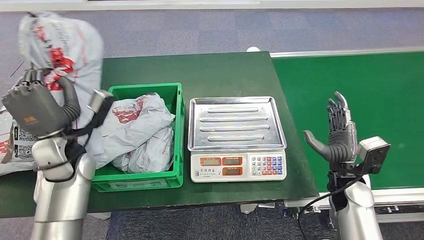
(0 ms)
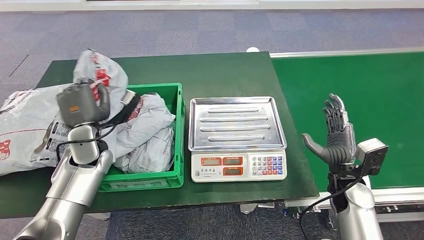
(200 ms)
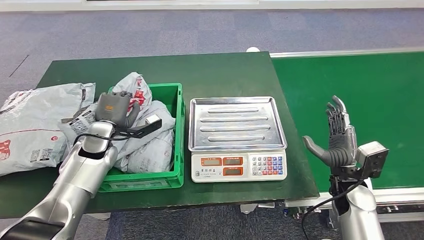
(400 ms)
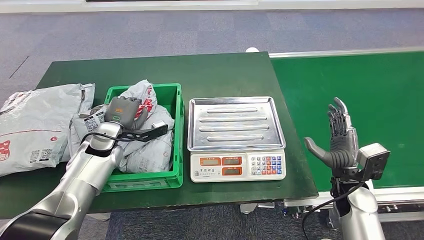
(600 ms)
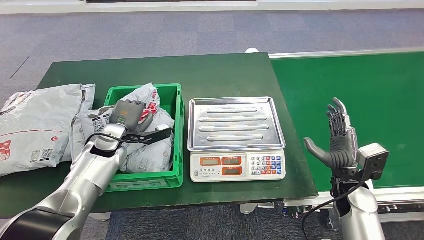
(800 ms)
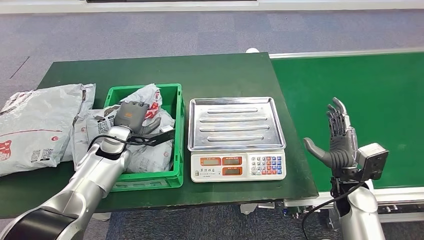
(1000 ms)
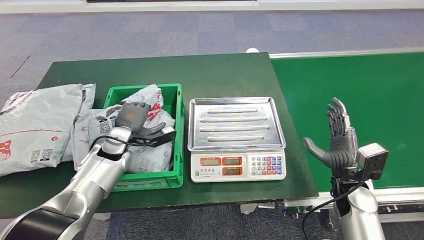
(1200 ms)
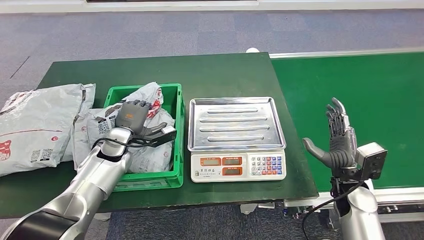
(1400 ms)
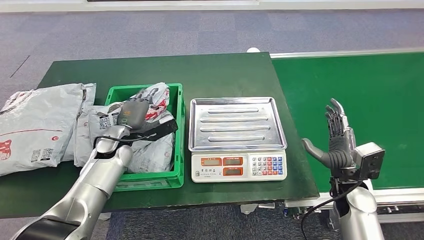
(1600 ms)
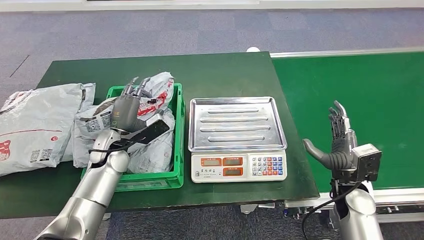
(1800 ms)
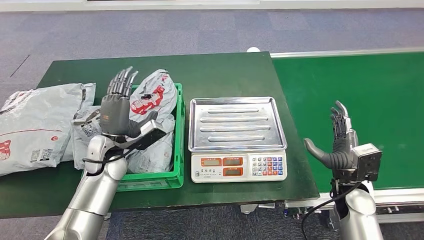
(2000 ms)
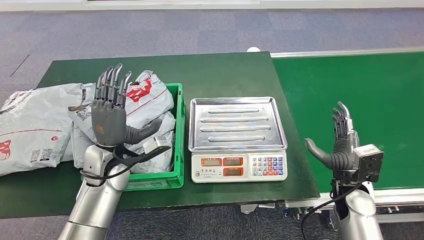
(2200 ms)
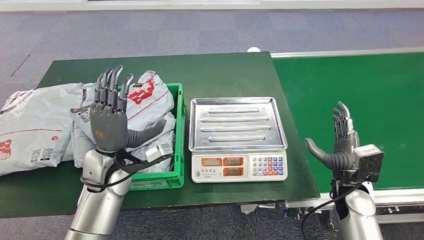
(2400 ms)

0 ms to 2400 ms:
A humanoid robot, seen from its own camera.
Step, 0 ms to 2400 ms: Place the parcel into the delivery box.
1200 ms to 2400 ms: The left hand travels backward and upward by about 10 cm.

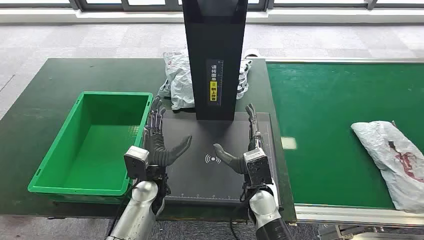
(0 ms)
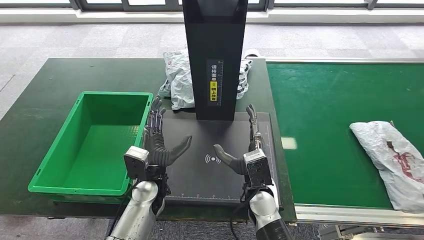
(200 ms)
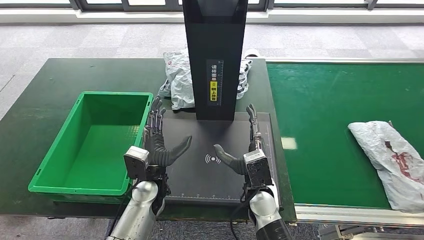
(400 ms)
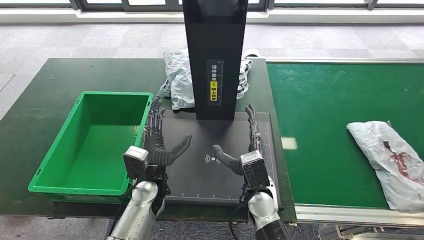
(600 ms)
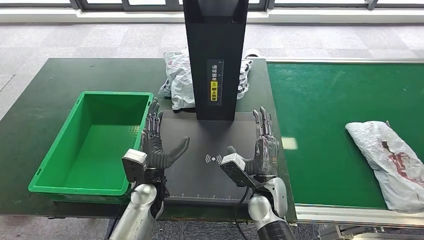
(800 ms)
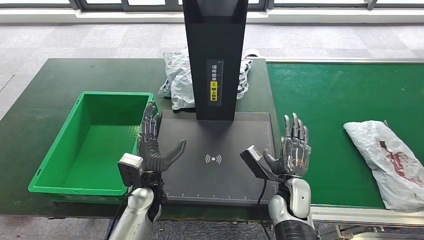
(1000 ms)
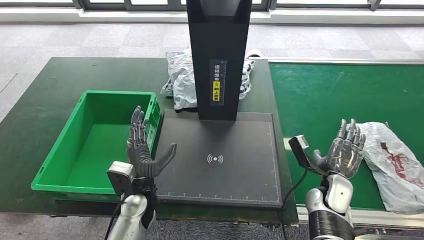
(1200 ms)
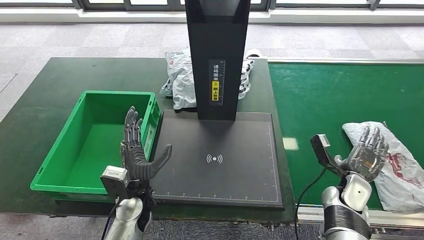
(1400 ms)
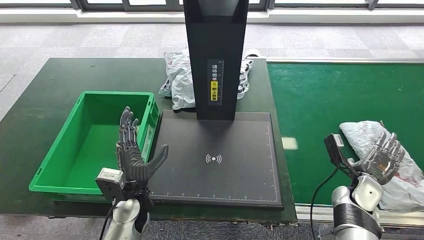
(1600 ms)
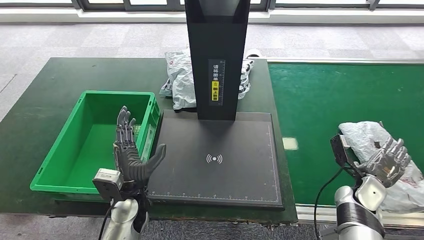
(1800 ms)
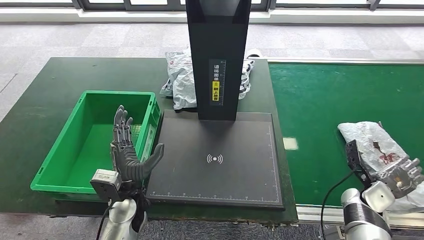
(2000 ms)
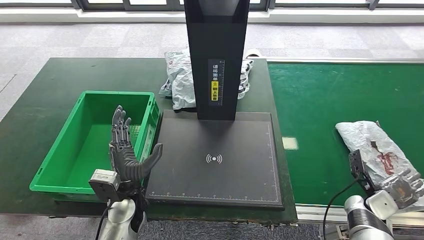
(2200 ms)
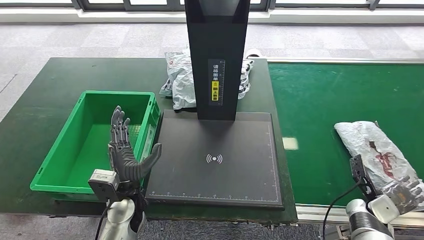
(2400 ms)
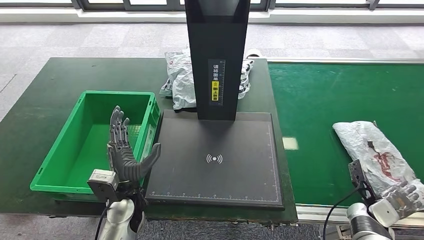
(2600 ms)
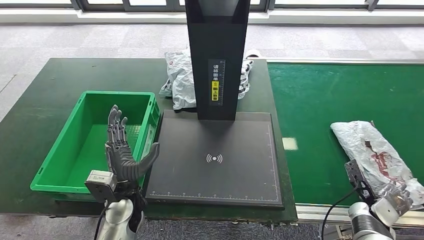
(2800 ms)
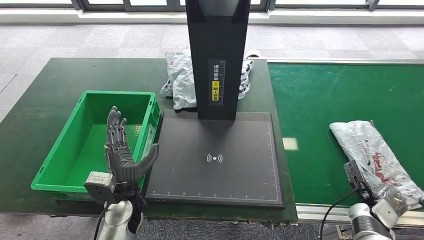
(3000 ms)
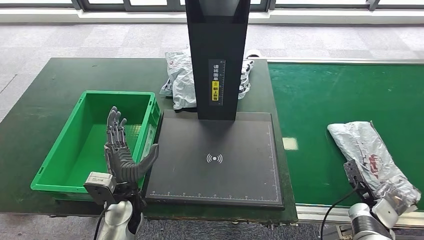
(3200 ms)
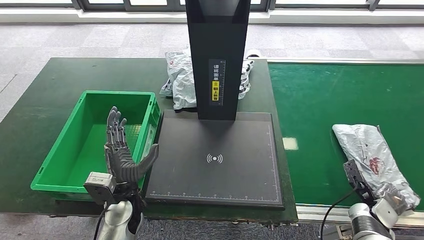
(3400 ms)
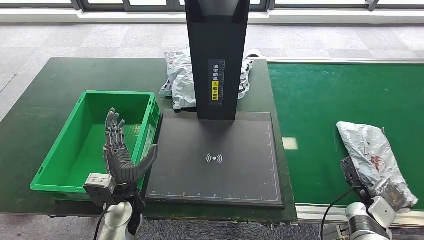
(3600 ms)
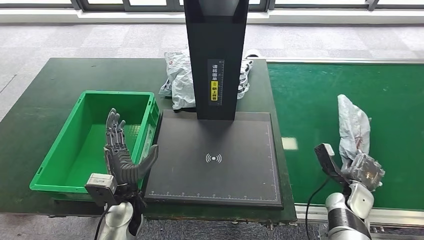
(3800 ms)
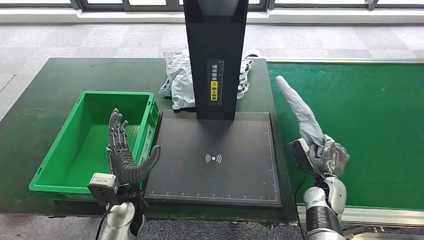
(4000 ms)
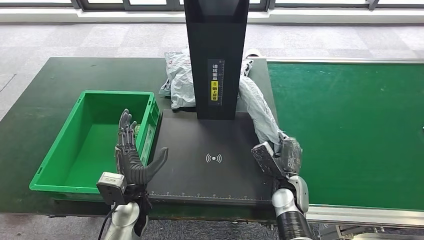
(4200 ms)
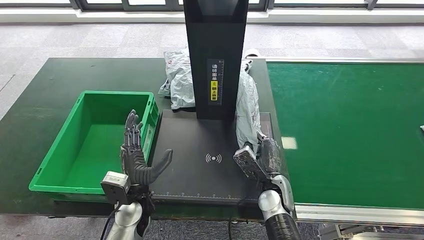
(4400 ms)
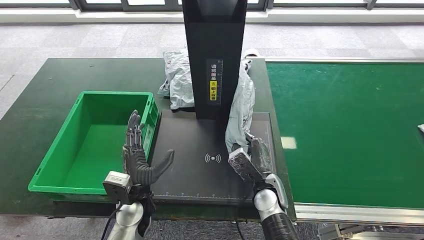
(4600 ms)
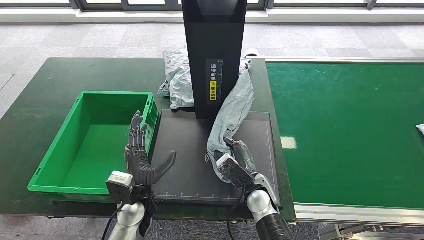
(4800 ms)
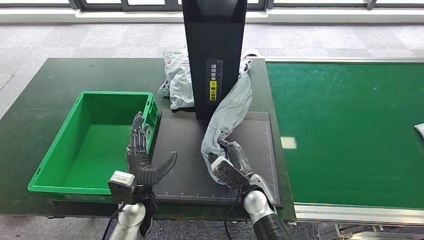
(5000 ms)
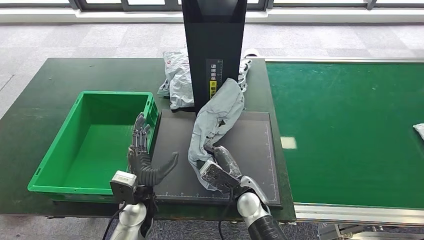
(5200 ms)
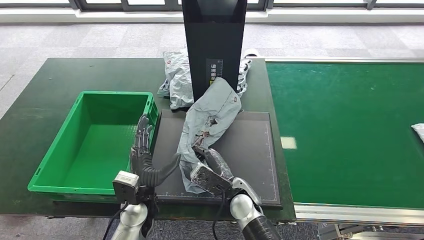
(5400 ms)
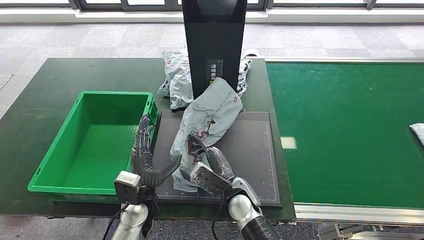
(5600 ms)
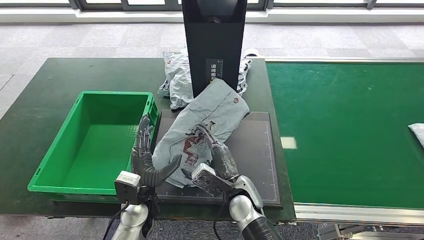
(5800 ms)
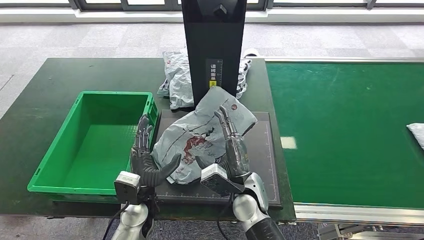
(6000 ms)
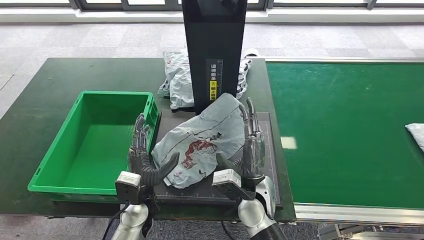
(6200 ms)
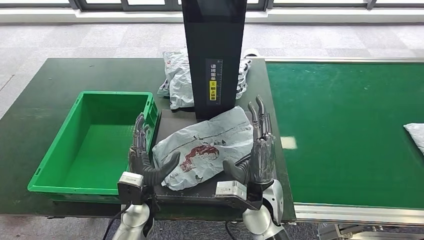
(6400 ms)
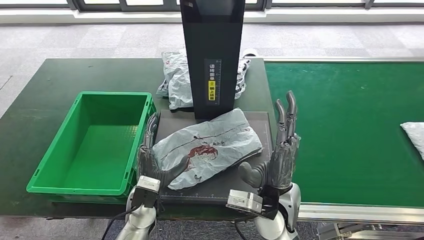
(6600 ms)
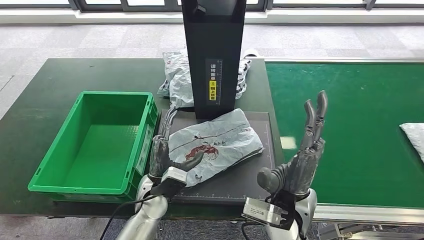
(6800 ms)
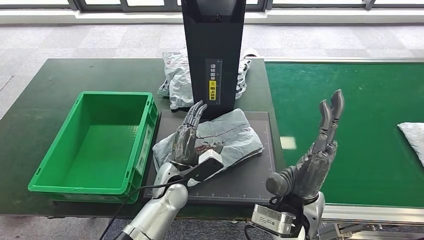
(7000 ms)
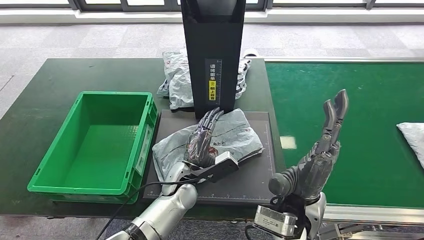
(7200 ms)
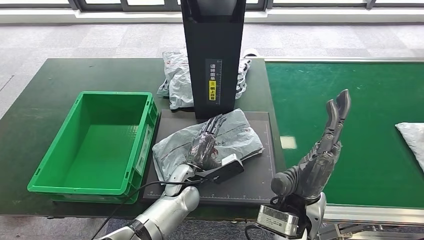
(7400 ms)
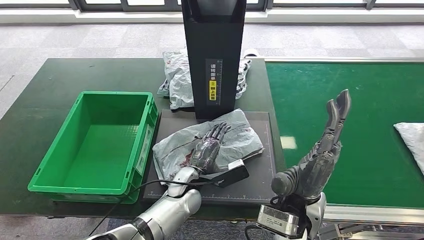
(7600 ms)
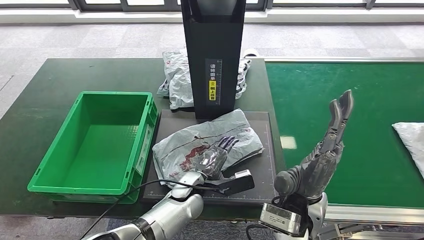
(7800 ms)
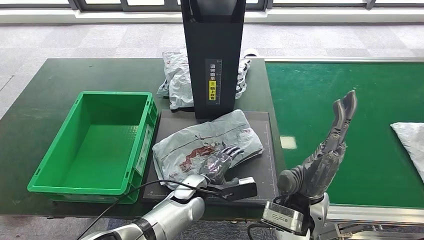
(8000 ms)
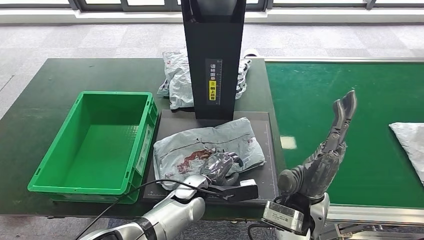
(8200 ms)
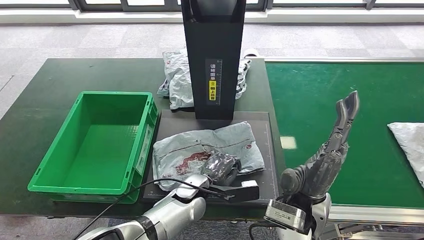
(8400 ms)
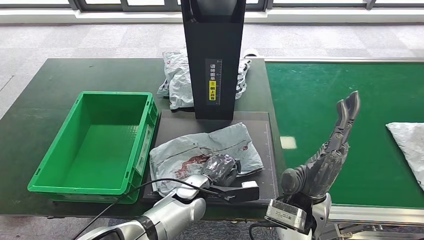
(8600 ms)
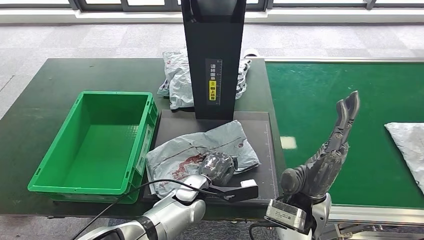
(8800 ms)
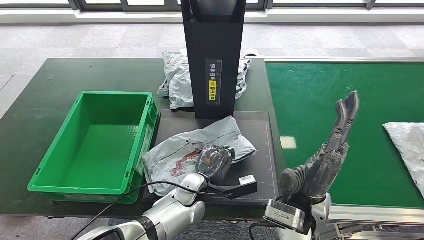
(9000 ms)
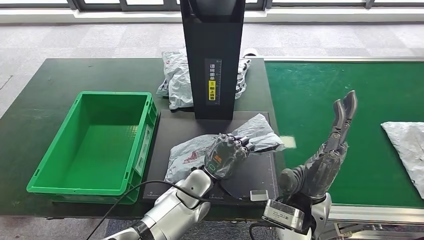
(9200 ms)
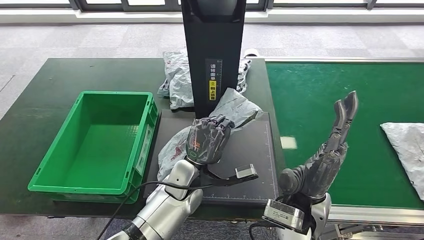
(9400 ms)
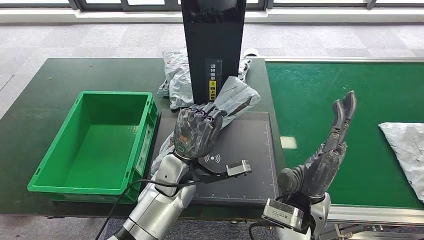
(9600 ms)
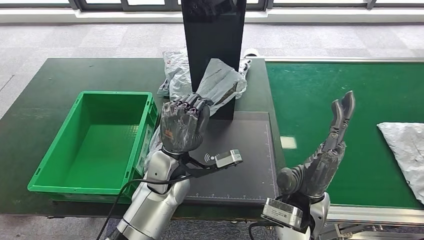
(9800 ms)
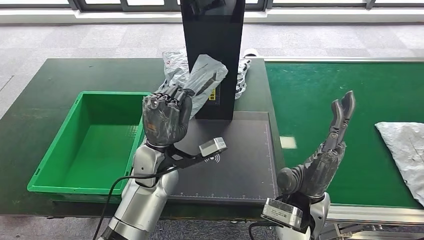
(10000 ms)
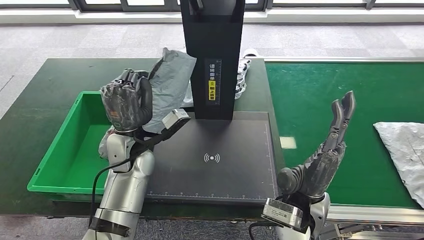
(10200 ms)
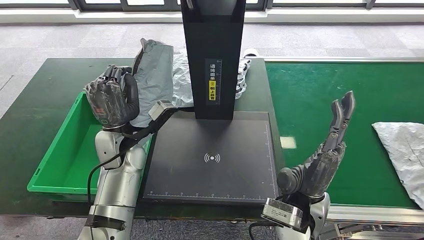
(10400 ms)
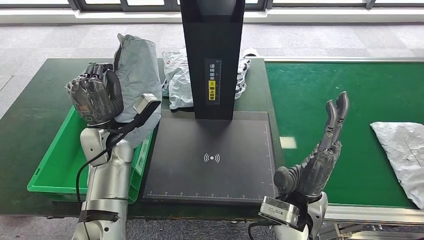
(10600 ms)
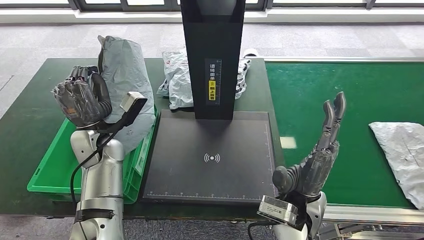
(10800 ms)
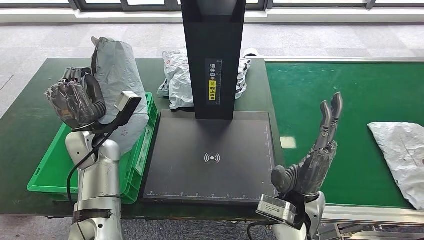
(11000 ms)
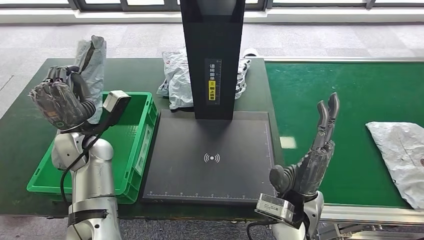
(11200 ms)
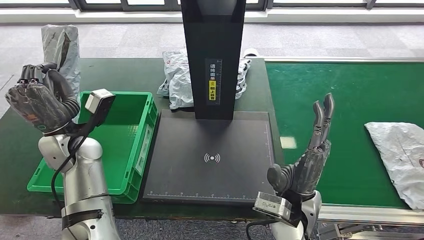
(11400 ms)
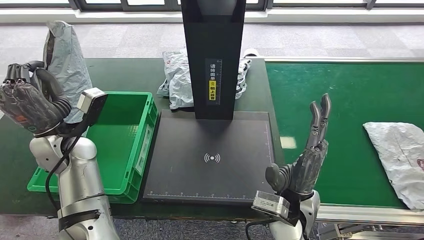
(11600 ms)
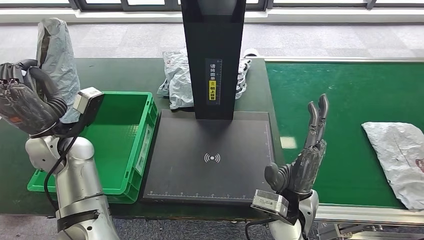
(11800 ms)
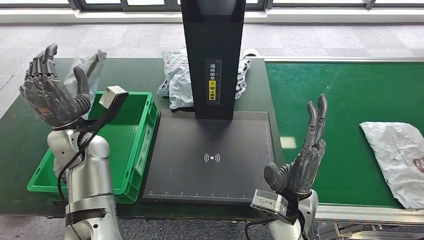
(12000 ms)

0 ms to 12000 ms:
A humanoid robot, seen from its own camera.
Step, 0 ms to 4800 ms: Take the parcel off the conveyor belt.
Step, 5000 ms to 6600 ms: Place the parcel onto the inbound machine.
Step, 6800 ms to 9800 ms: Pick up the parcel from the inbound machine.
1600 ms to 3000 ms: The right hand heads to the right and downward, covering about 10 cm.
4400 ms to 6000 ms: The right hand is displaced to the left by roughly 10 cm.
6000 ms to 7600 ms: The right hand heads upward and to the right, covering some 15 cm, while the left hand is displaced to the right and forward by about 10 cm.

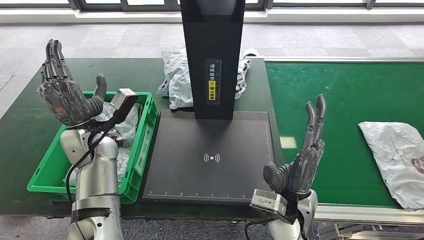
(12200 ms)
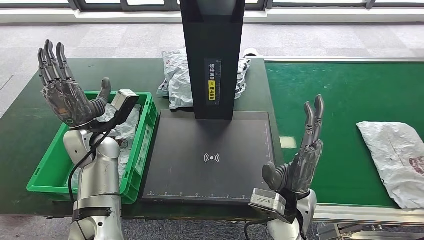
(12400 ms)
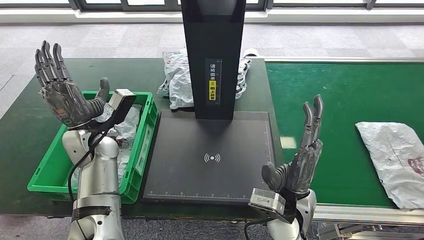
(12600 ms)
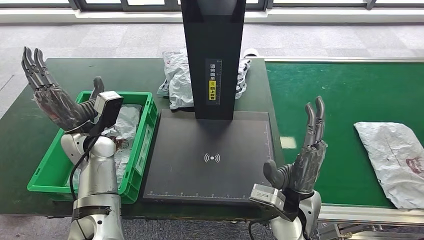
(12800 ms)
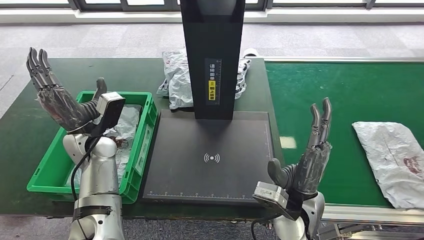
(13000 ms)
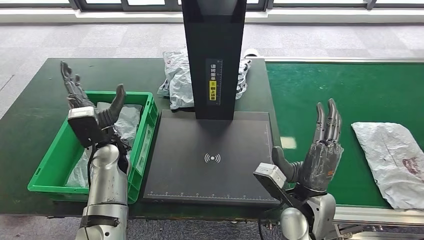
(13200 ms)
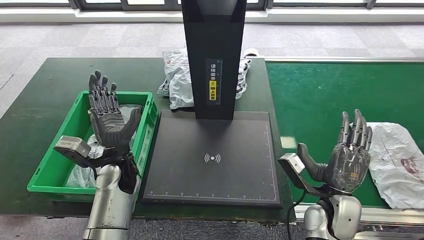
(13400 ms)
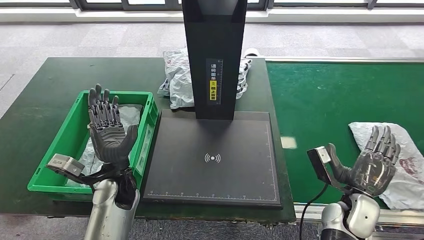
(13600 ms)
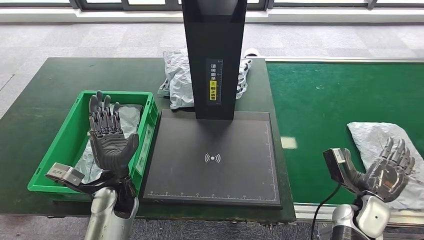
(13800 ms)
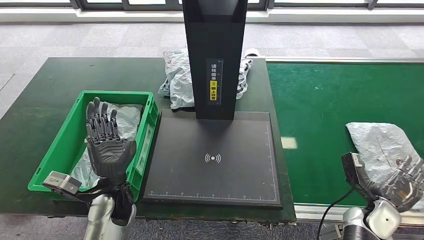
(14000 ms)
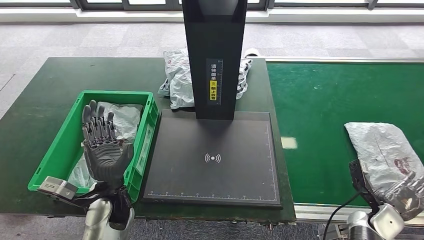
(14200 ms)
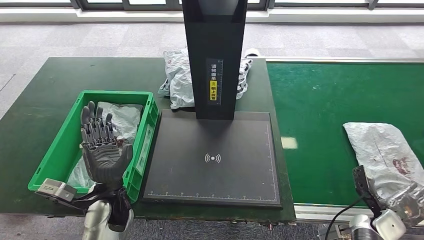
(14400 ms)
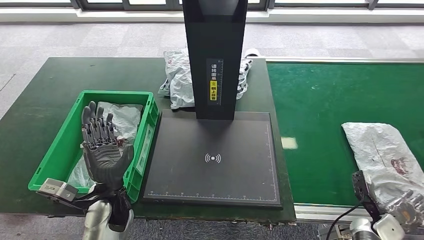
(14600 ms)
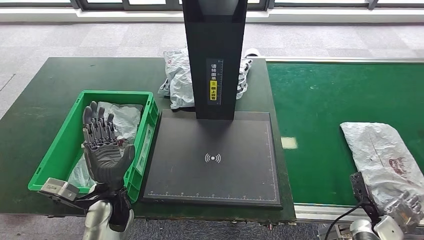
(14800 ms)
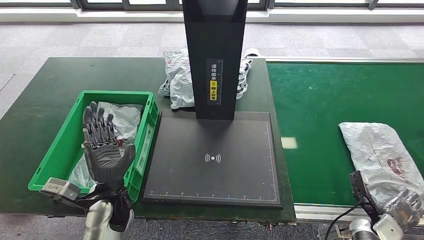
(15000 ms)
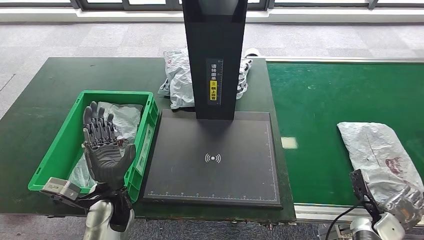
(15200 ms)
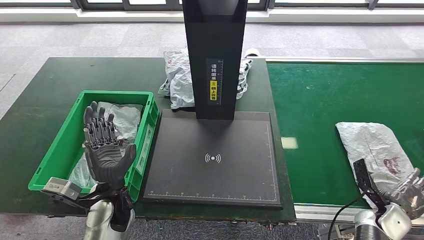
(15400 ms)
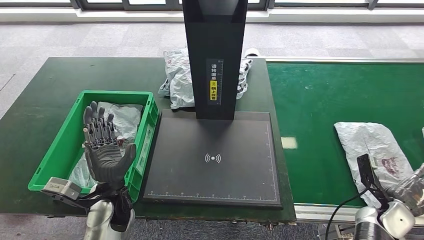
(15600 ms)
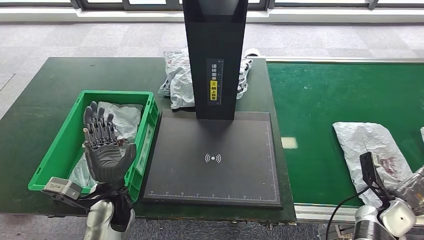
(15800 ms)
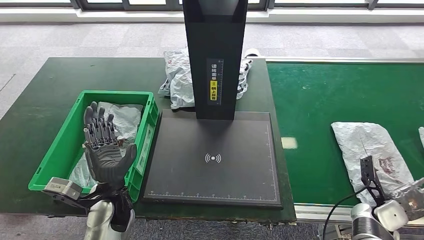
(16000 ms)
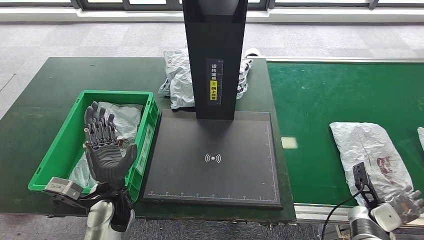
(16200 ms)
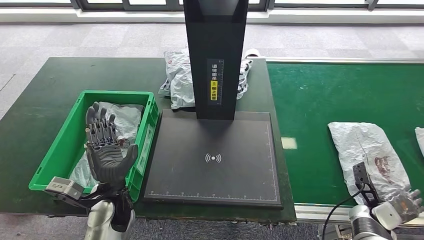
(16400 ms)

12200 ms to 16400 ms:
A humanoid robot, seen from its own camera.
13600 ms to 15000 ms: The right hand moves to the right and downward, roughly 15 cm.
15000 ms to 16400 ms: The hands stay close to where they were, moving slightly.
